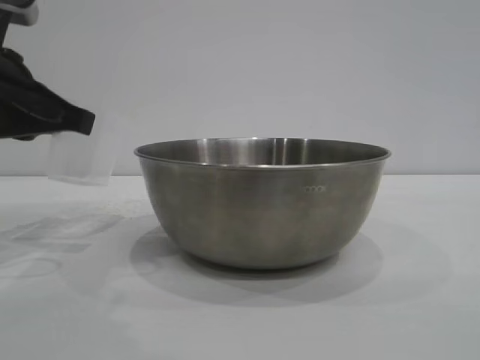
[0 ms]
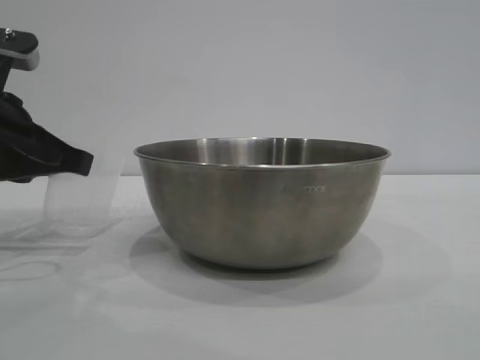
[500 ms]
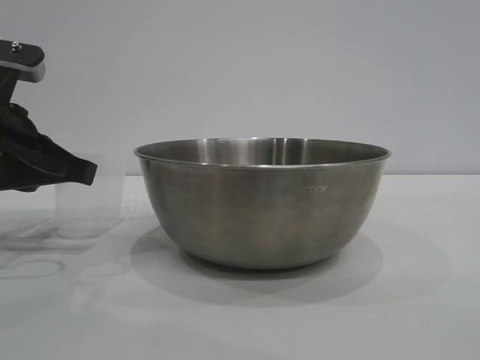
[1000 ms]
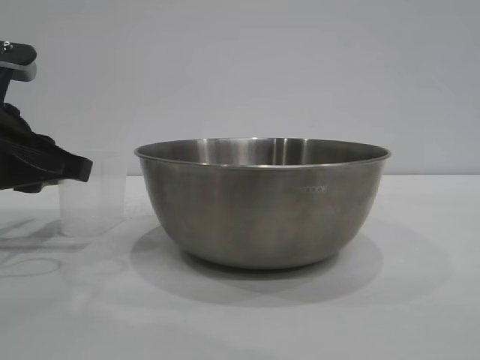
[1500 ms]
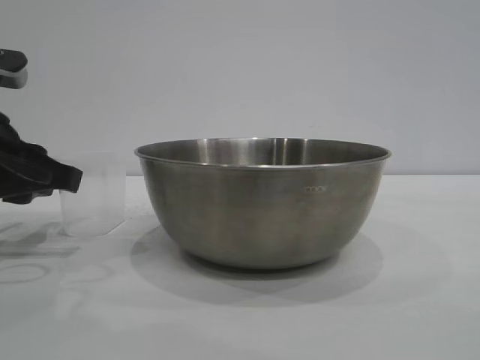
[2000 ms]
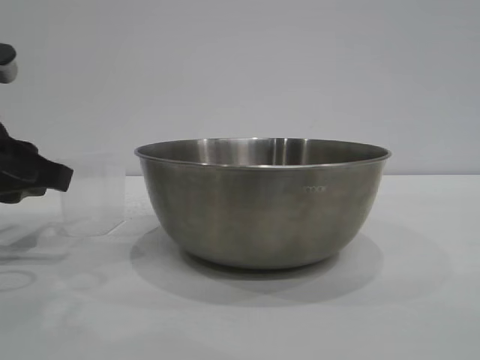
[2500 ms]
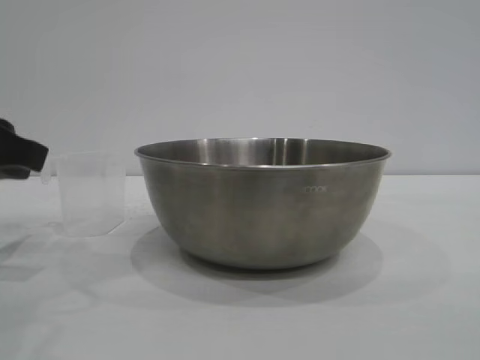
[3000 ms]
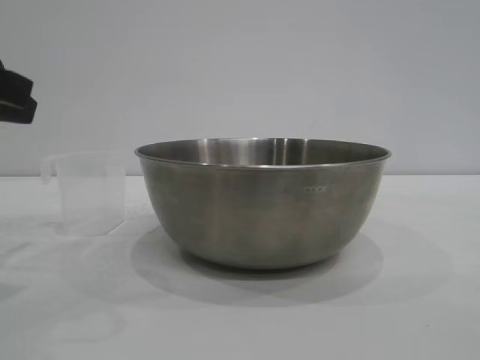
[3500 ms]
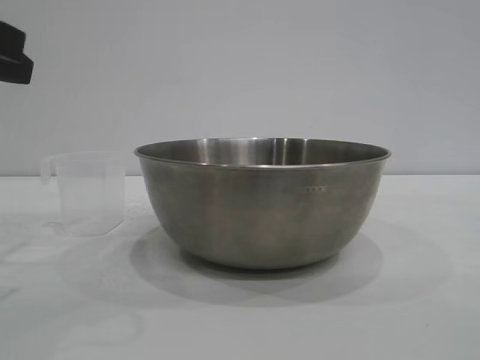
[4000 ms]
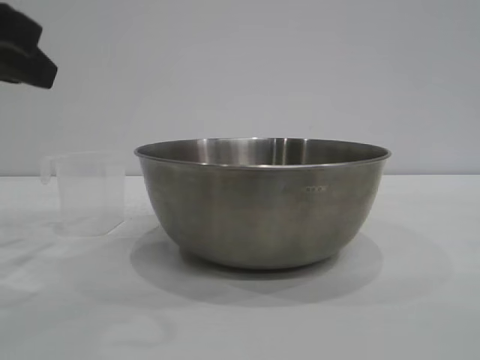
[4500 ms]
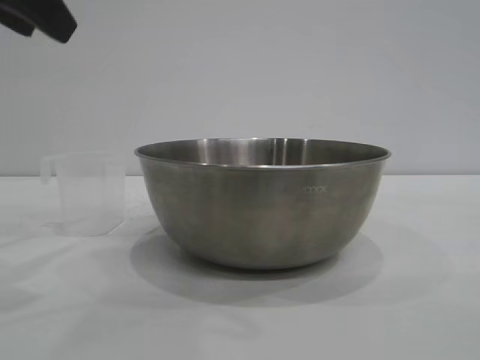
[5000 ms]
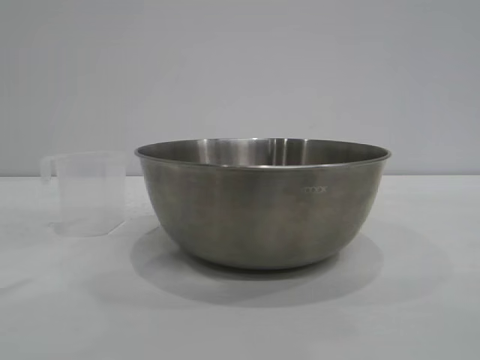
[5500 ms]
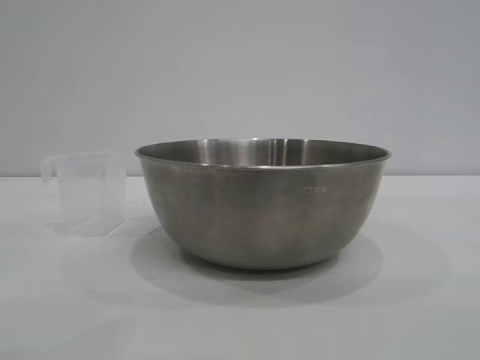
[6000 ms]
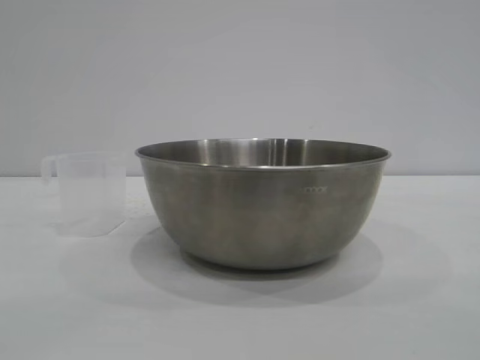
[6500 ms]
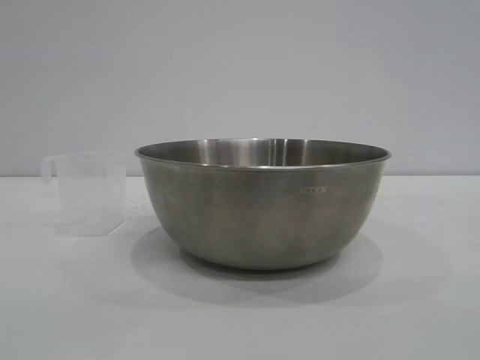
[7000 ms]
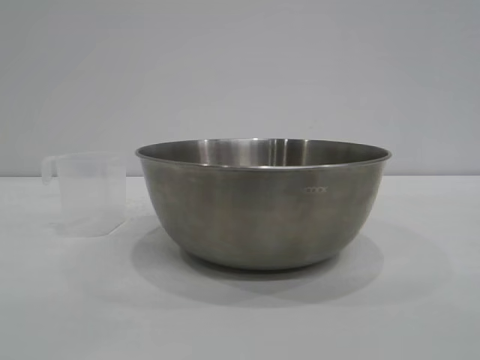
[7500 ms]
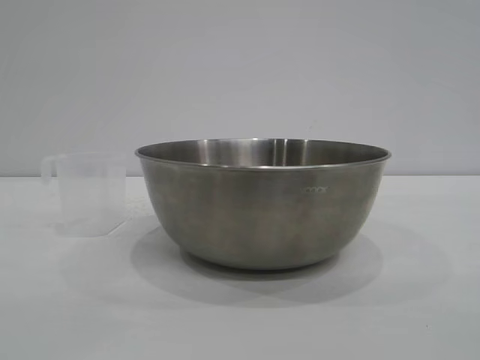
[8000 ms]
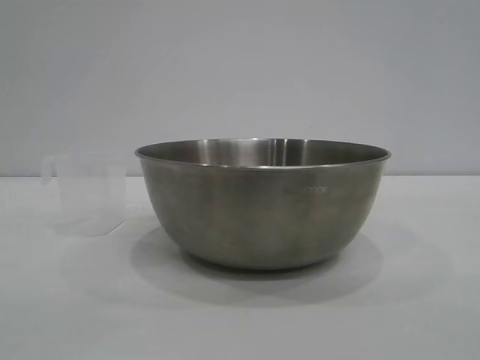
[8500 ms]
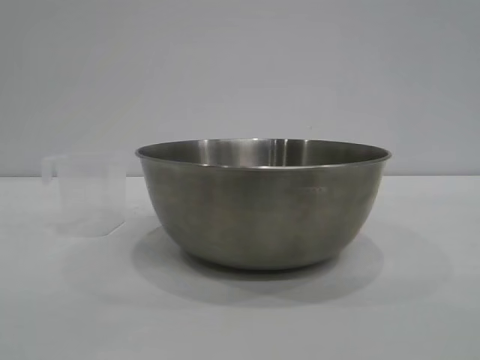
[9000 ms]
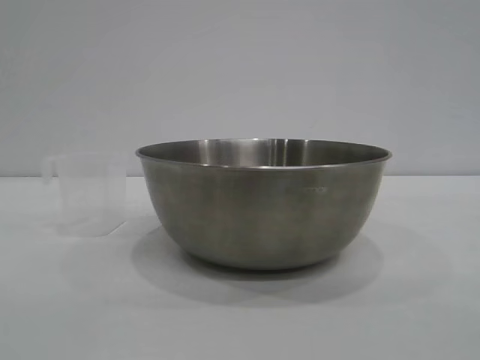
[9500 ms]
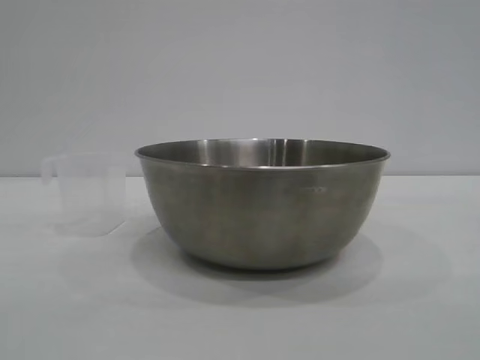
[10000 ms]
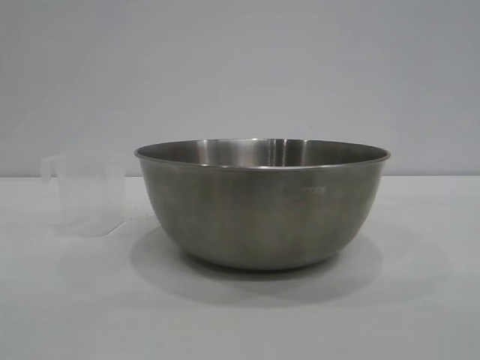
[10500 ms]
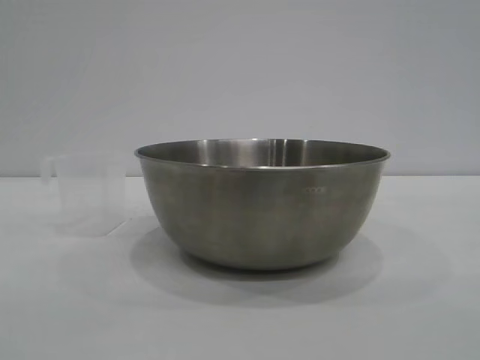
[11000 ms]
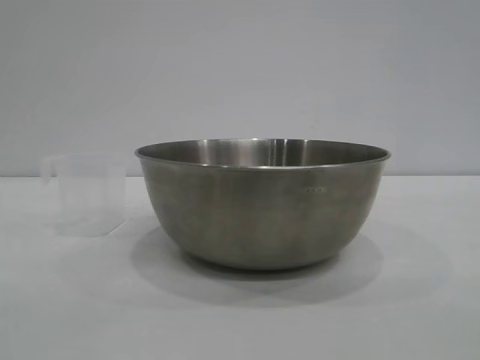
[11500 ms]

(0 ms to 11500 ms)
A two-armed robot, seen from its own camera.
Task of the whole recording: the right gripper grasp the rice container and place it in the center of the table, the left gripper grasp the rice scoop and pour the rice into the rice container.
Step, 0 ms - 3000 ms: Place the cup on the table with the left gripper.
